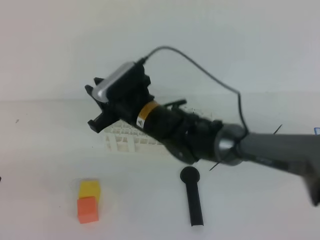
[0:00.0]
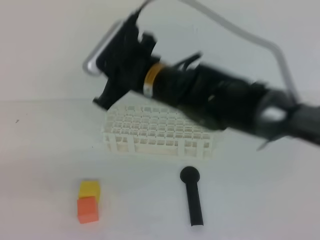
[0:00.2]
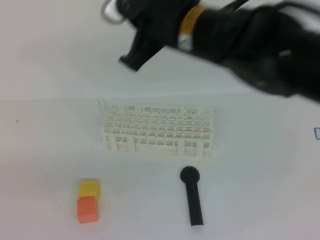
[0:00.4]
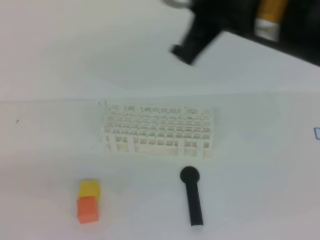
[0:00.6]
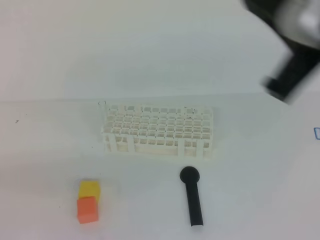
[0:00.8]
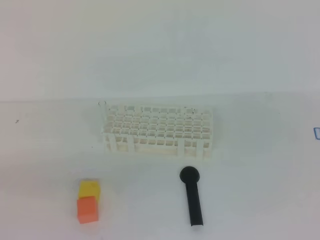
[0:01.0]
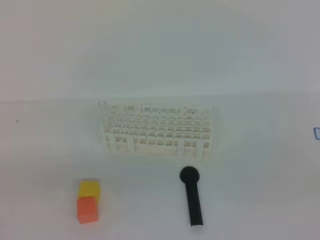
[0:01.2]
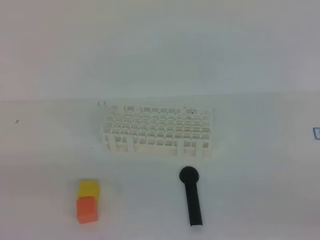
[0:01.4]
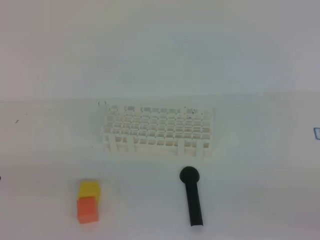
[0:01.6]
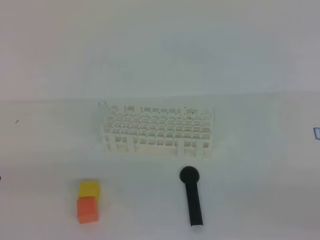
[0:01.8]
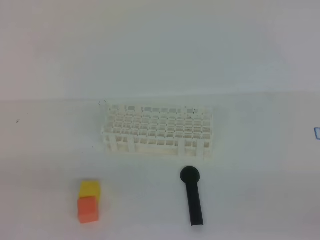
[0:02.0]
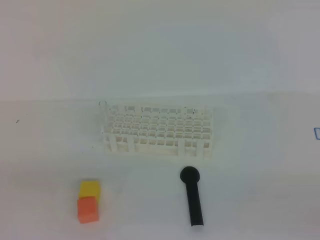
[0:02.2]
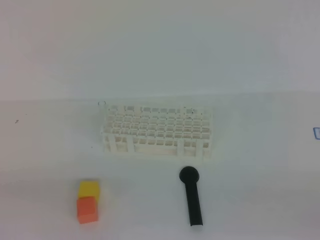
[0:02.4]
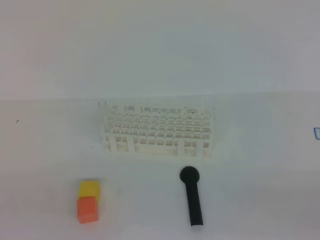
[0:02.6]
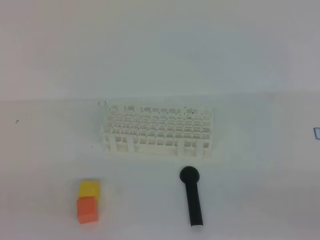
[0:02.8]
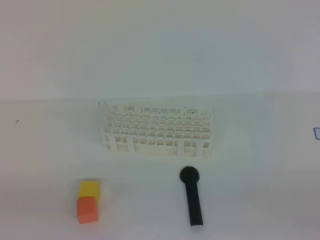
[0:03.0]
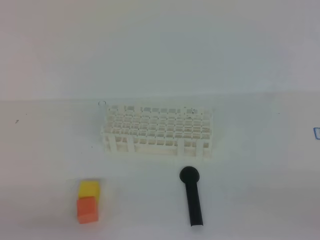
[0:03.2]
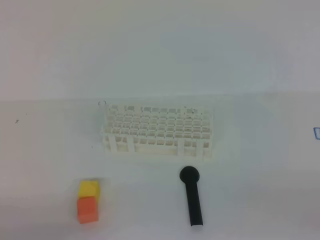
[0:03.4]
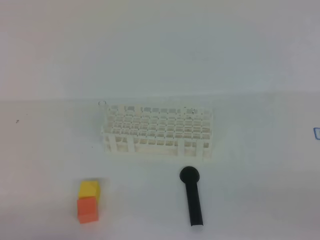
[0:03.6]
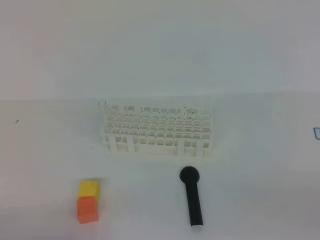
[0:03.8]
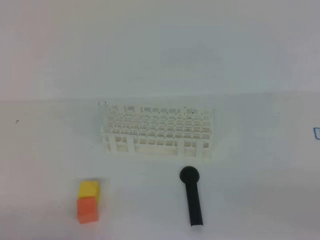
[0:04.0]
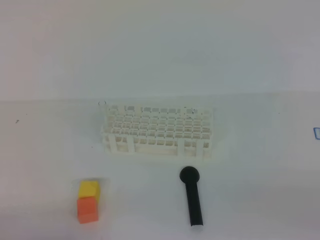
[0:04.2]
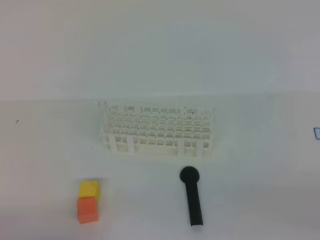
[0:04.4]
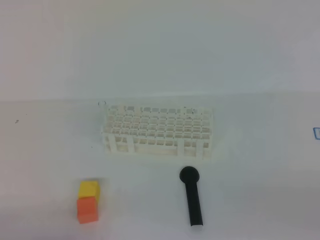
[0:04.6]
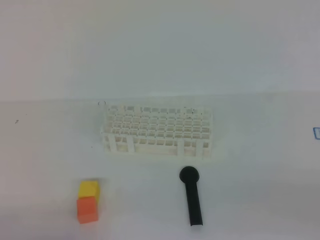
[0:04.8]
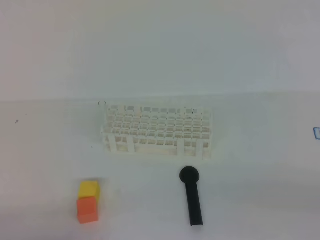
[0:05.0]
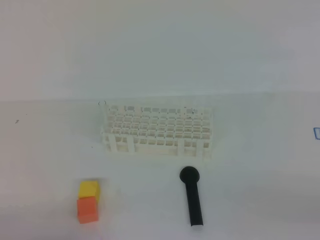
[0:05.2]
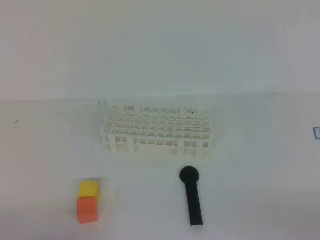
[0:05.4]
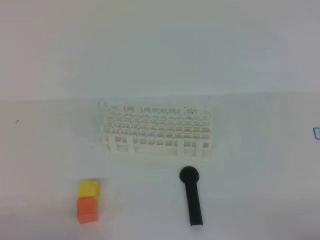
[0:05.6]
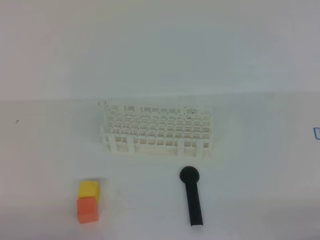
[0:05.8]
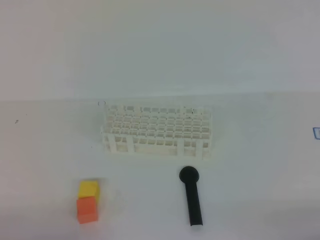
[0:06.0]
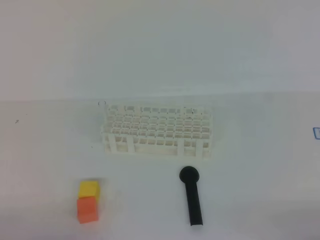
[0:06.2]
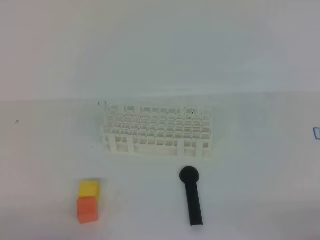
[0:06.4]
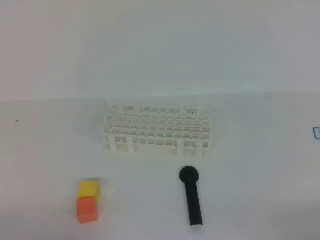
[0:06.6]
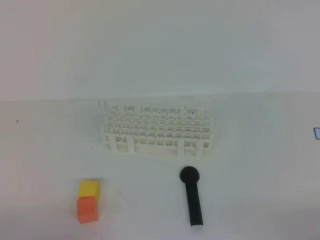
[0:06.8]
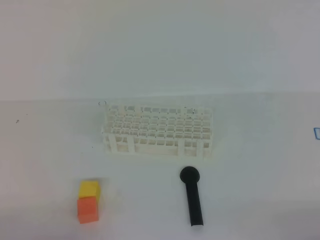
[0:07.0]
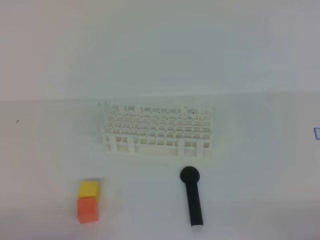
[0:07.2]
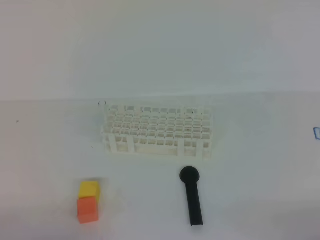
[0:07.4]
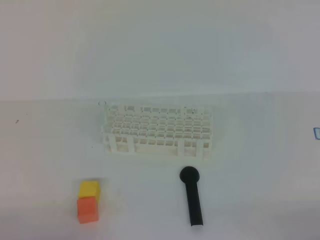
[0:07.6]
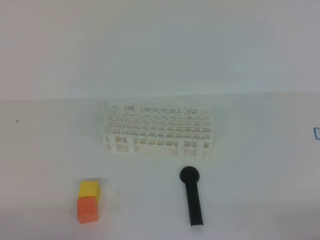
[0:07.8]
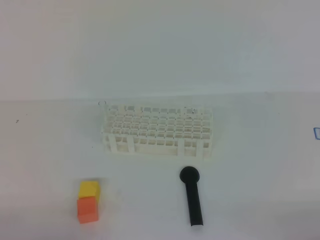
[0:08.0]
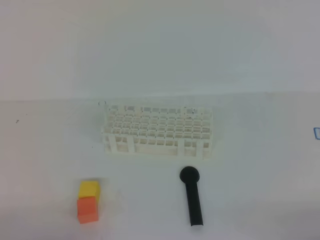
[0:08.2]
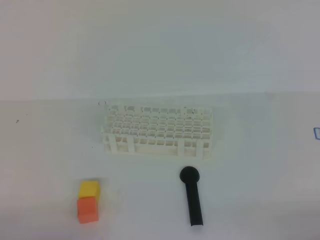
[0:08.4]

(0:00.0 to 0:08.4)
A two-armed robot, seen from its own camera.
0:00.0 - 0:01.4: The right gripper travels to the right and backward by roughly 50 cm, and closes its fingers.
0:07.0 - 0:08.4: Neither gripper changes place.
